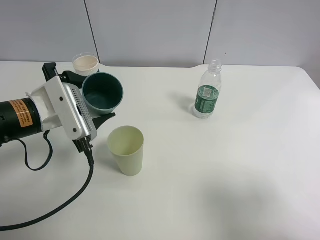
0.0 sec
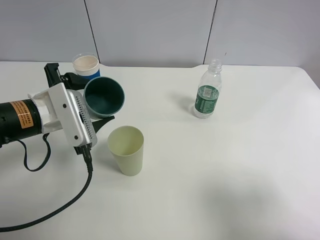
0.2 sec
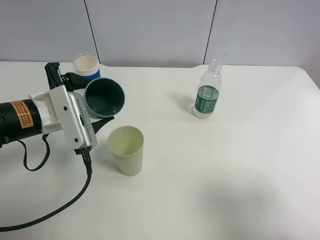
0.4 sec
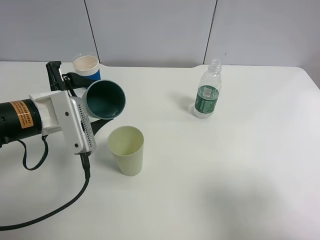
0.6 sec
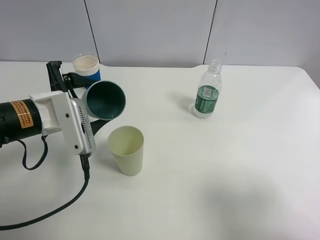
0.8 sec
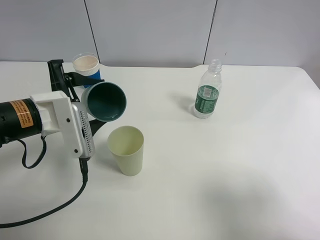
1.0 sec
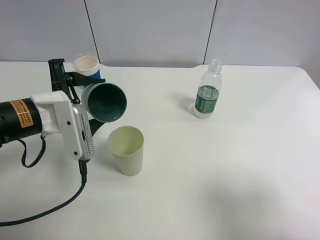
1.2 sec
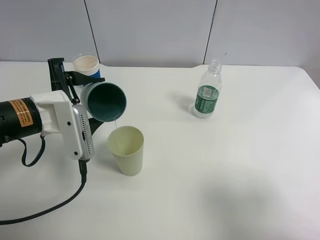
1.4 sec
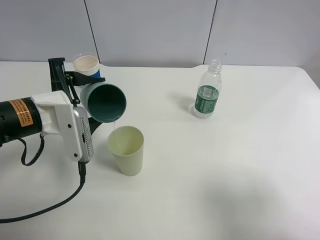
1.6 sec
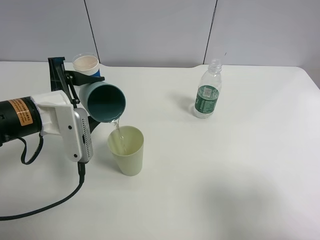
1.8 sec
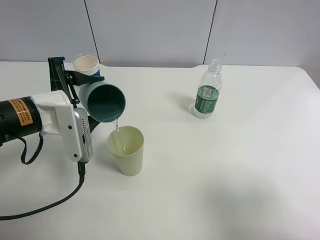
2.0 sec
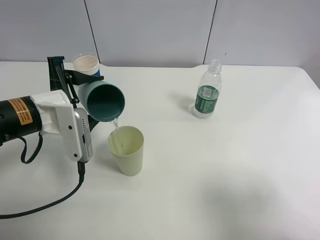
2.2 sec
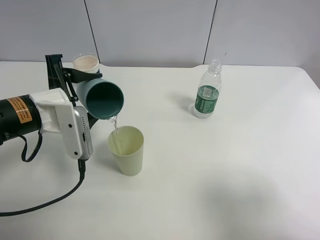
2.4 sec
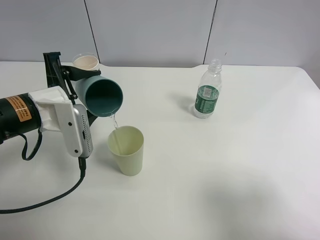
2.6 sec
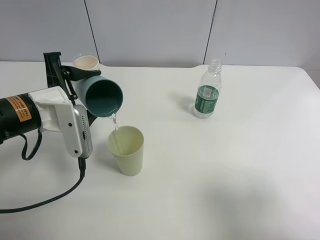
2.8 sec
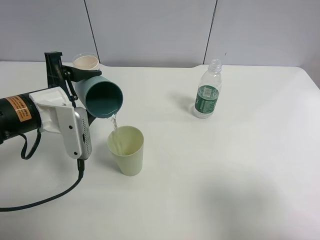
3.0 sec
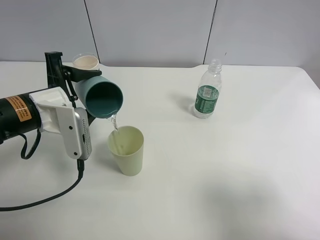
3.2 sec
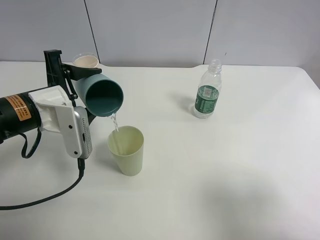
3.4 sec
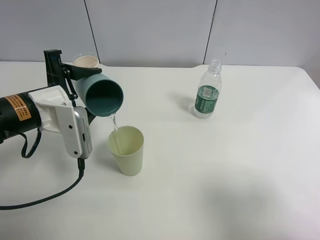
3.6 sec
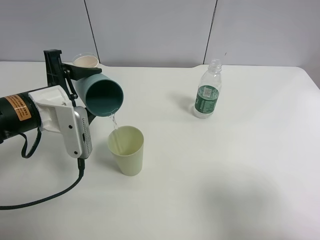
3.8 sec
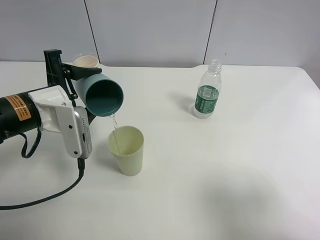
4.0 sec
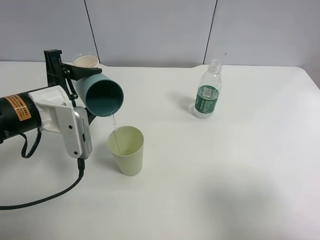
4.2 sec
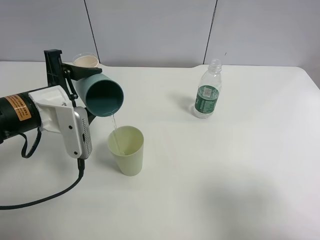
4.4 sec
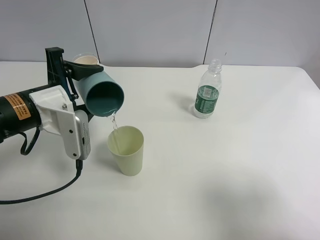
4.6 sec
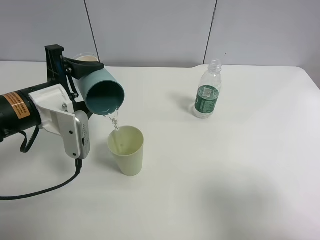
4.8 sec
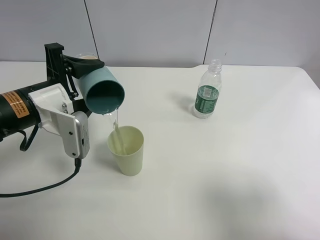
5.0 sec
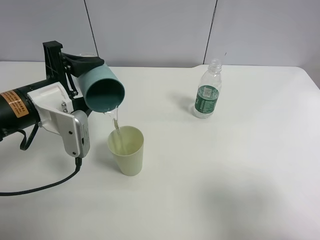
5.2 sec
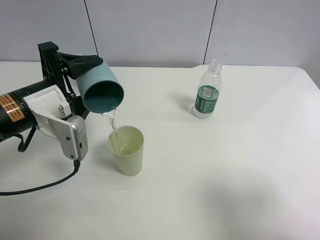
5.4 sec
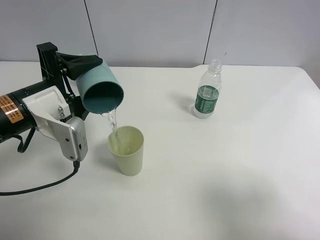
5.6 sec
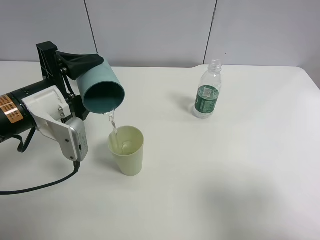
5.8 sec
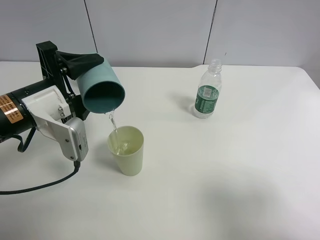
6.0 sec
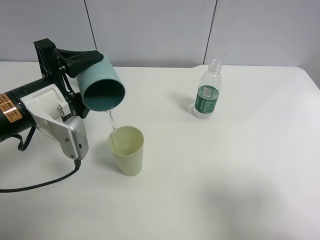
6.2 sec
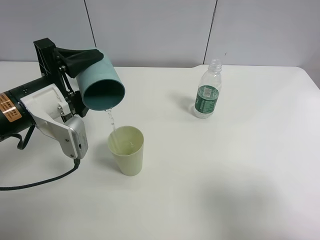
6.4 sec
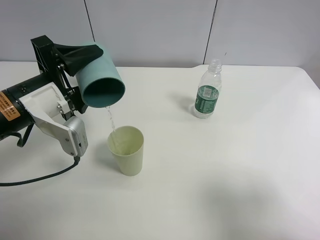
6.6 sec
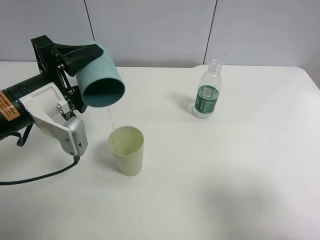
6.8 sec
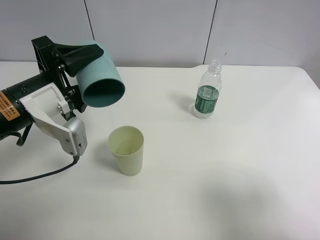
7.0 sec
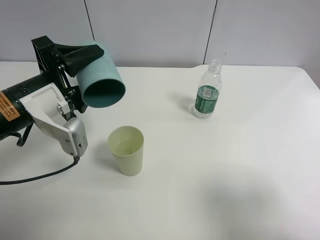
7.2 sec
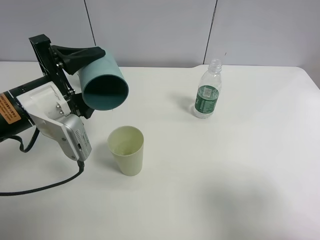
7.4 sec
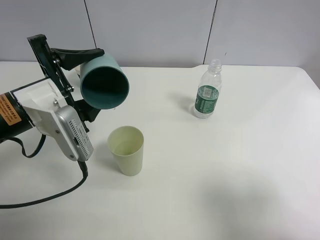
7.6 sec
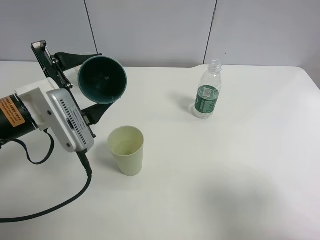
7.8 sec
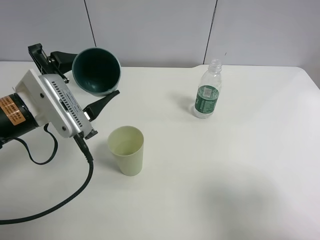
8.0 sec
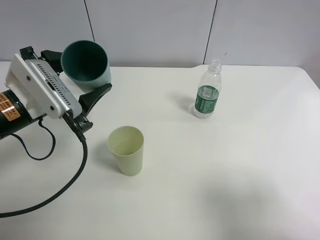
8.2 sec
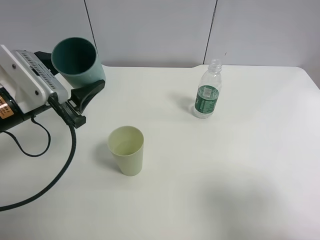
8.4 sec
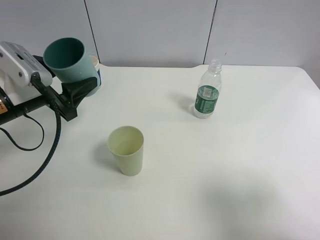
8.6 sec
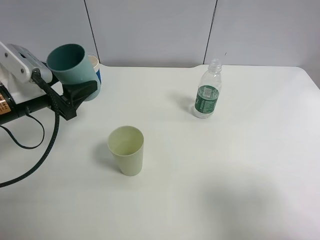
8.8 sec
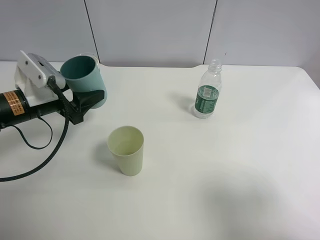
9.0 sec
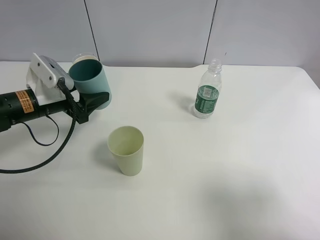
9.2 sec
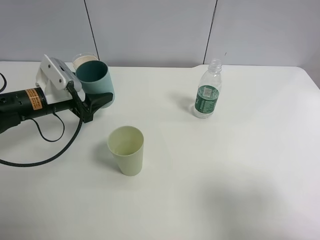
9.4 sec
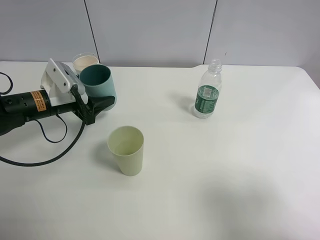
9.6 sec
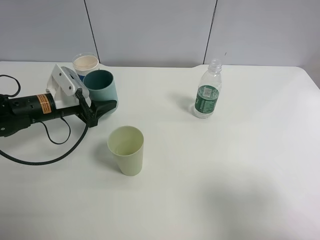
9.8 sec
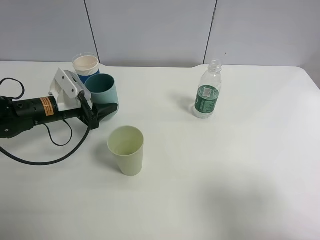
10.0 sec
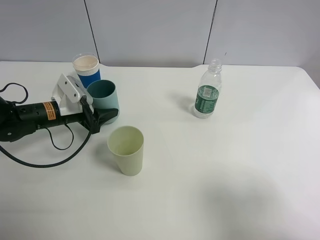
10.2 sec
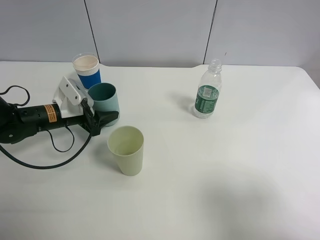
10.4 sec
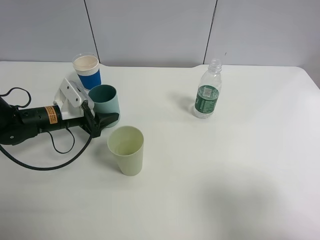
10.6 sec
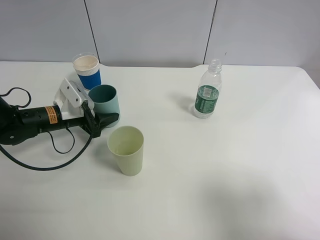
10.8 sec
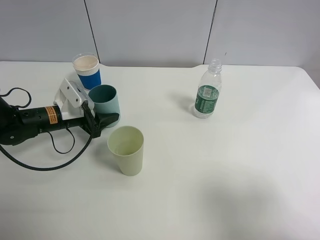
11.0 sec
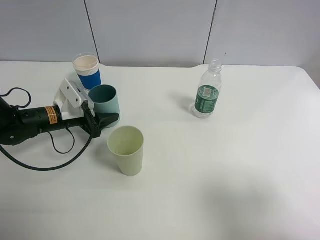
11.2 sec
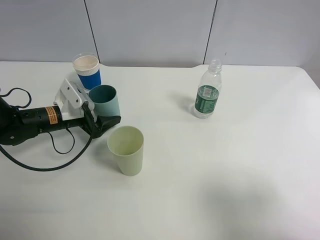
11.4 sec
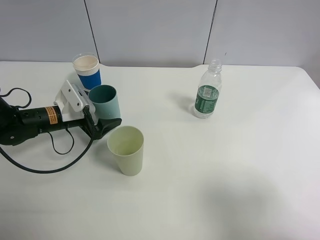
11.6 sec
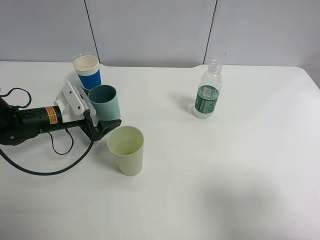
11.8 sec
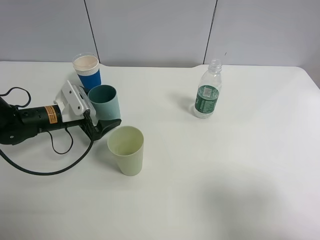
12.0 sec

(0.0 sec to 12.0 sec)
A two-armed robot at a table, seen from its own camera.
Task of the whole recording: use a clamp to hold the bottle of the drink, pour the beverage into a random cup, then clamp the cup containing the drink and pour the drink into another random cup.
Step, 0.0 sec - 8.0 sec: Pour the water into the green plastic cup with left gripper.
1.6 sec - 3.0 sec: The grippers make only small movements.
3.0 sec - 4.4 sec: Both grippers stay put.
7.6 sec - 9.0 sec: The left gripper travels forward, downward and to the left by roughly 10 cm.
9.0 sec - 10.4 sec: The left gripper moves downward, about 10 cm.
10.4 sec - 12.0 sec: The left gripper opens its fingers.

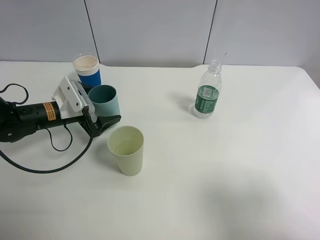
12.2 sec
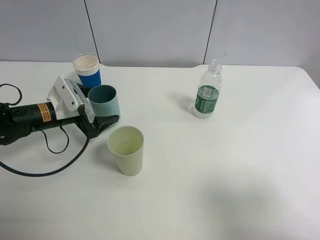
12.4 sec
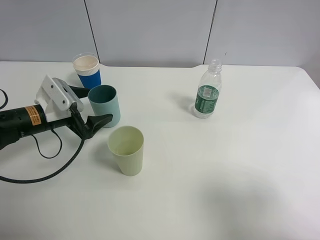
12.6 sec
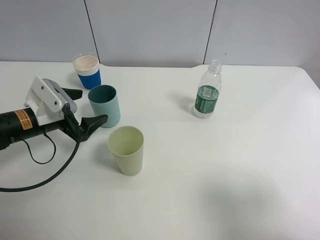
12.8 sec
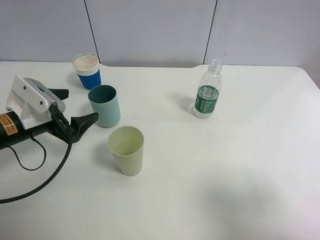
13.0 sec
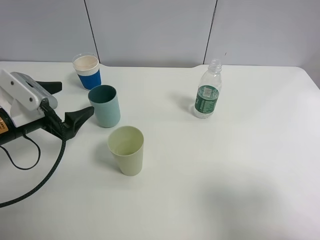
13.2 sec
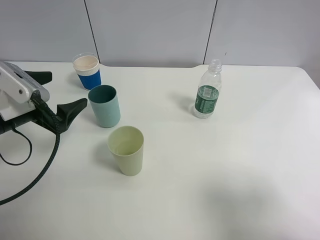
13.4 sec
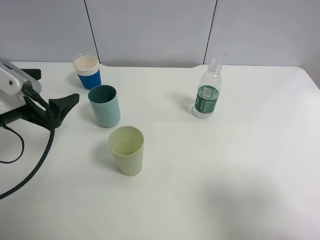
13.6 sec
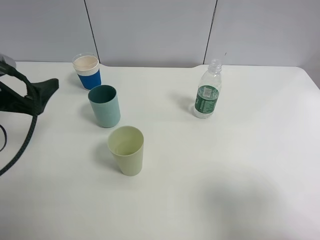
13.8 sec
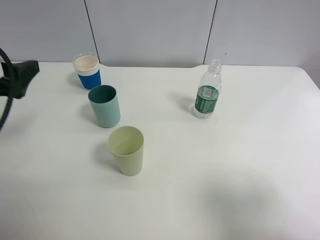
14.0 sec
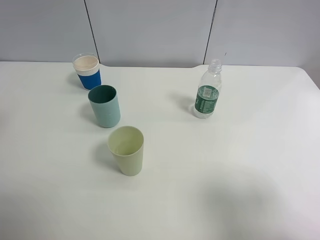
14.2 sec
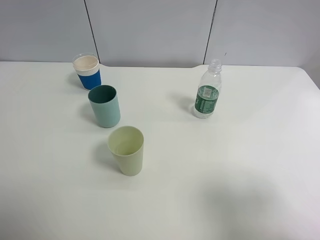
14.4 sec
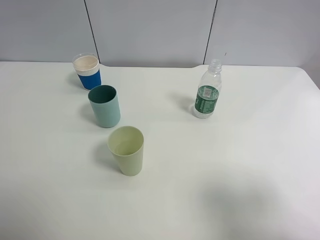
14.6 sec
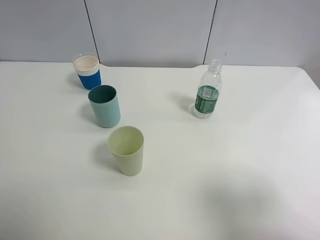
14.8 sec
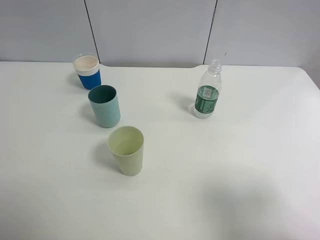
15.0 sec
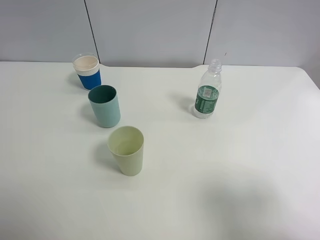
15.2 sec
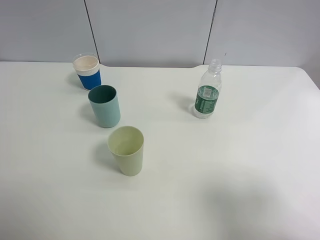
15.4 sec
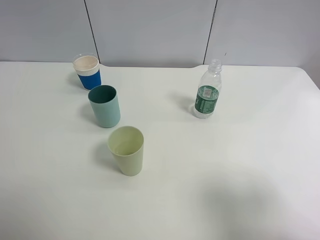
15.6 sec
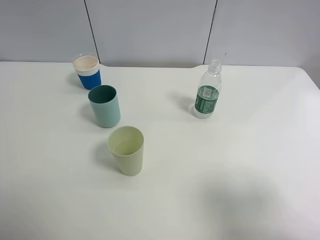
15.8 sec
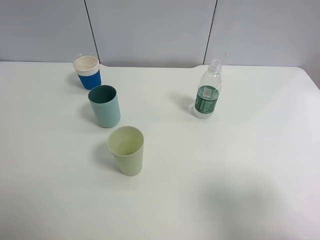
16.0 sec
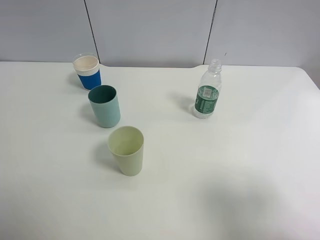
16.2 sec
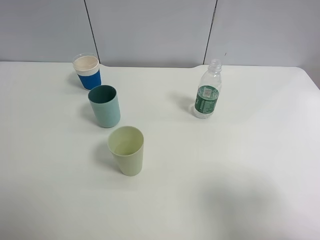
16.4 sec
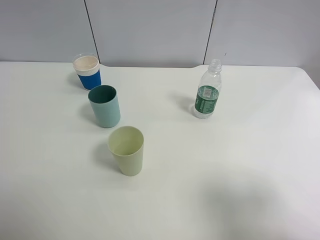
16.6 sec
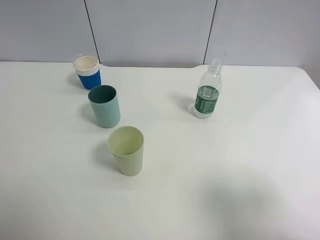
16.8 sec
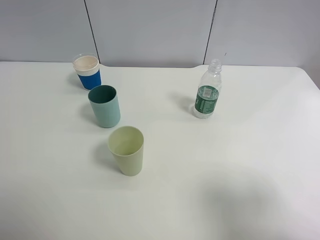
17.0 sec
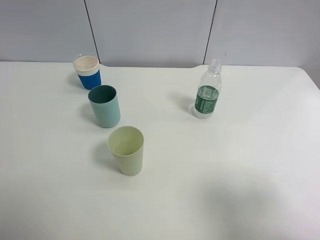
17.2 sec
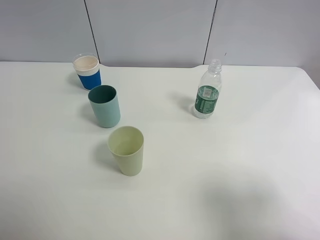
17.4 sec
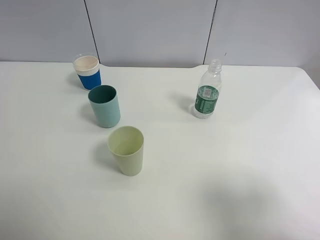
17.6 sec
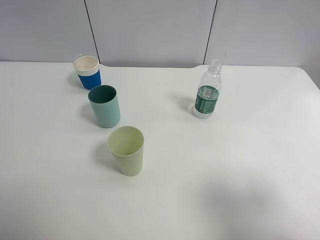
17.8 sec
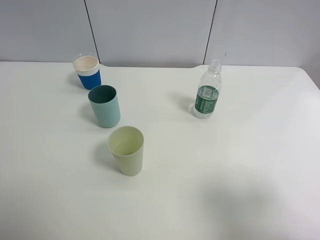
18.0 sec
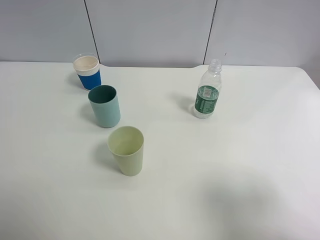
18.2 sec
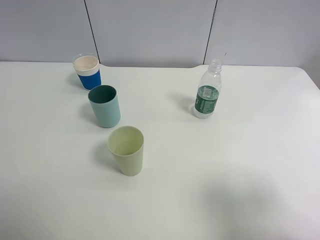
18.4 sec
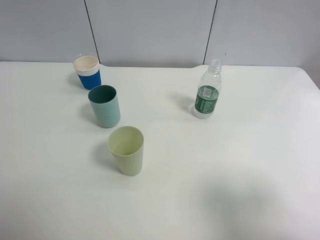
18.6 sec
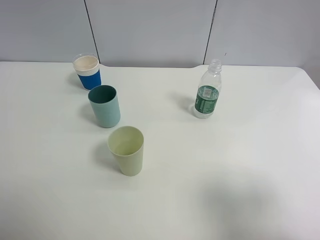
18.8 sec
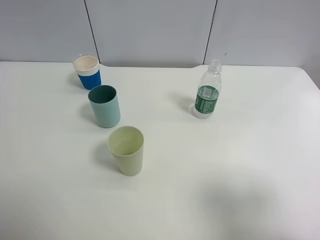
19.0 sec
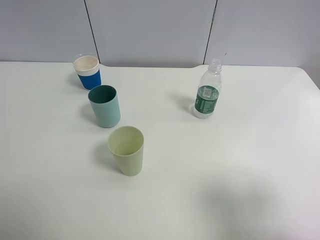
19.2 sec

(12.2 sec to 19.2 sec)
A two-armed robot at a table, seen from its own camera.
Task of the whole recording: use a clamp to hold the bottle of the drink, pour the beverage into a random cup, then clamp the cup containing the drink and pour the drink into another random cup.
12.2 sec - 13.6 sec: The left gripper shifts roughly 15 cm upward and backward.
13.6 sec - 15.0 sec: The left gripper moves backward and upward, some 20 cm.
16.4 sec - 19.2 sec: Both grippers stay put.
